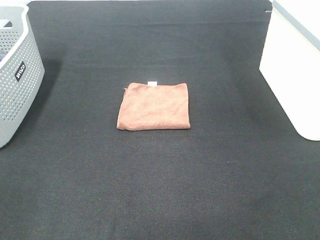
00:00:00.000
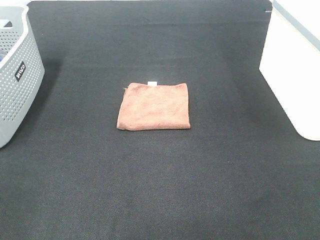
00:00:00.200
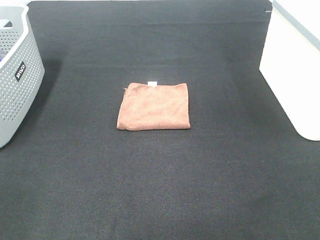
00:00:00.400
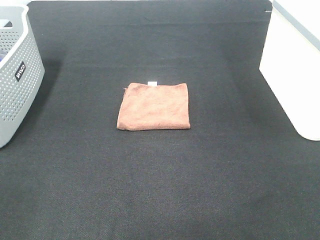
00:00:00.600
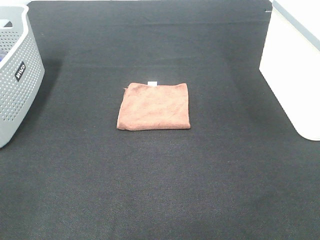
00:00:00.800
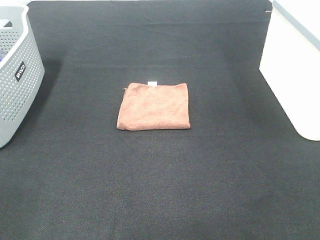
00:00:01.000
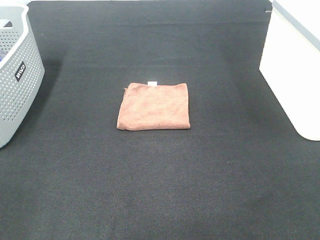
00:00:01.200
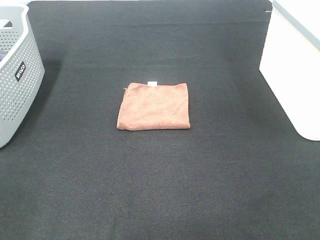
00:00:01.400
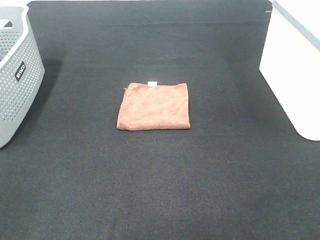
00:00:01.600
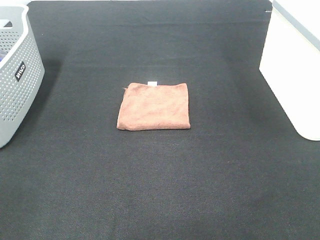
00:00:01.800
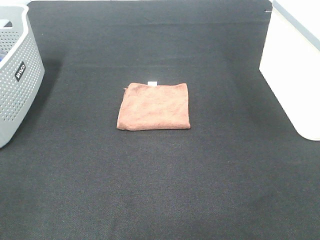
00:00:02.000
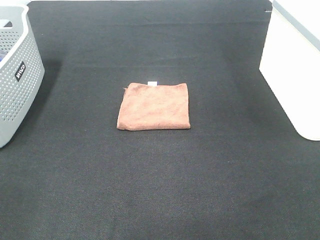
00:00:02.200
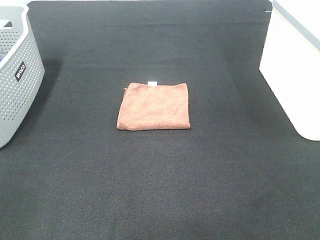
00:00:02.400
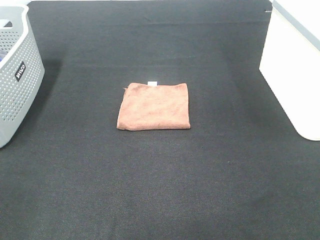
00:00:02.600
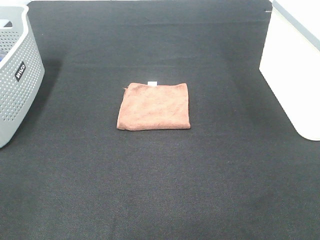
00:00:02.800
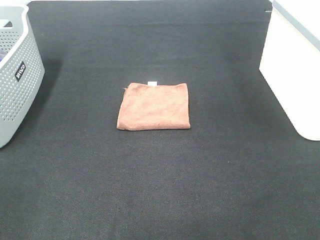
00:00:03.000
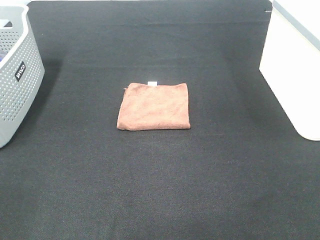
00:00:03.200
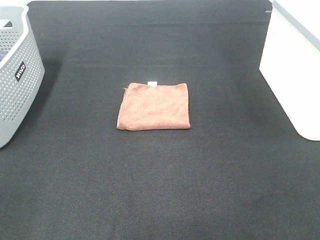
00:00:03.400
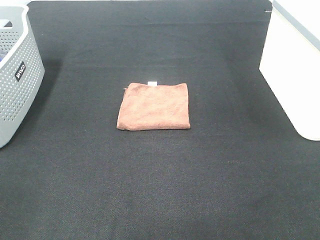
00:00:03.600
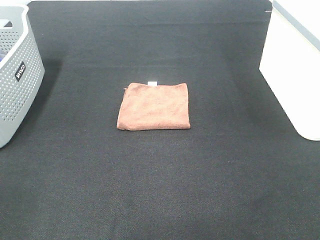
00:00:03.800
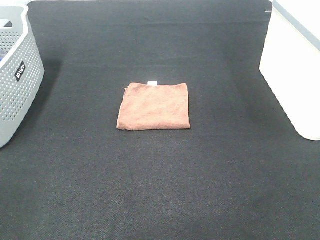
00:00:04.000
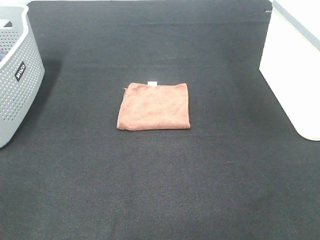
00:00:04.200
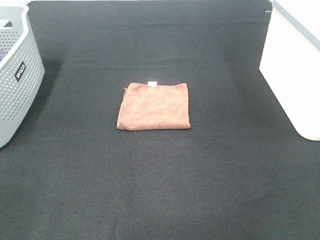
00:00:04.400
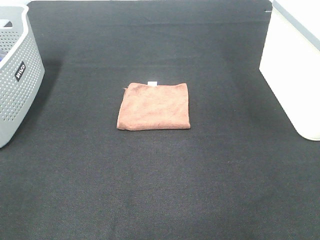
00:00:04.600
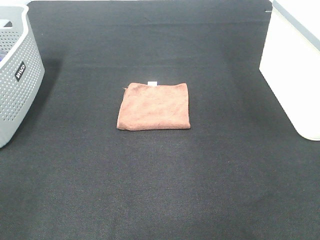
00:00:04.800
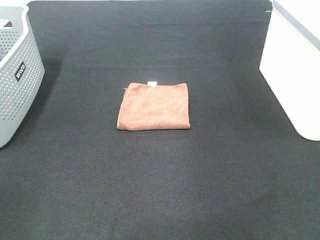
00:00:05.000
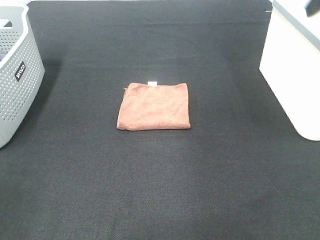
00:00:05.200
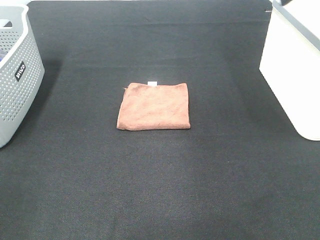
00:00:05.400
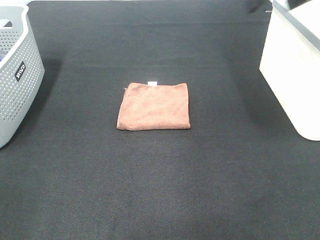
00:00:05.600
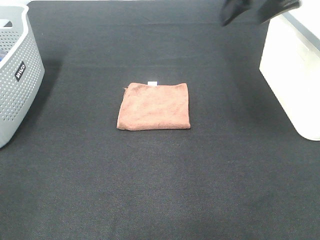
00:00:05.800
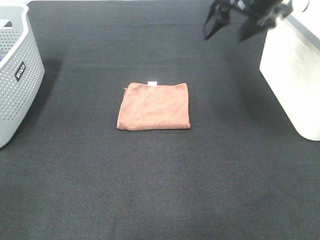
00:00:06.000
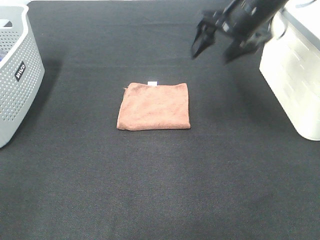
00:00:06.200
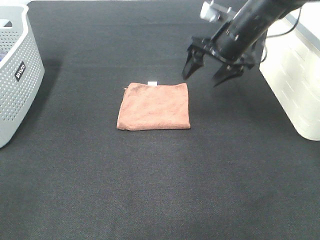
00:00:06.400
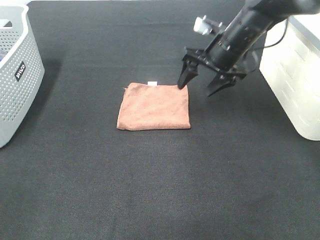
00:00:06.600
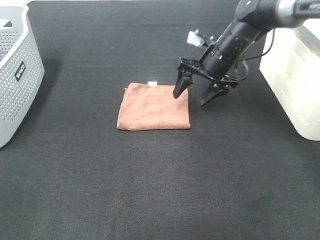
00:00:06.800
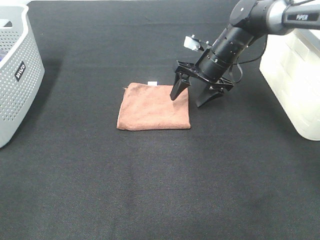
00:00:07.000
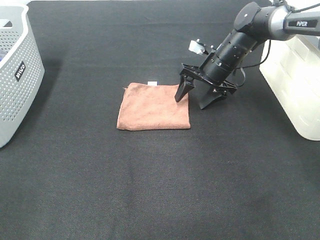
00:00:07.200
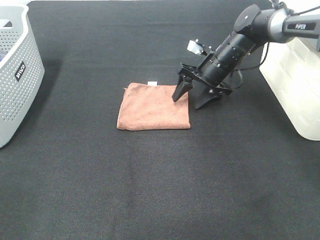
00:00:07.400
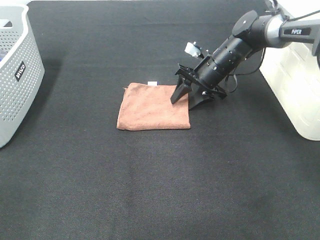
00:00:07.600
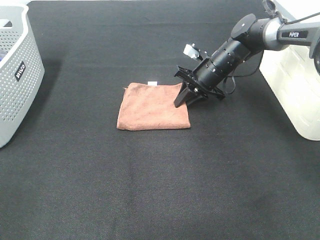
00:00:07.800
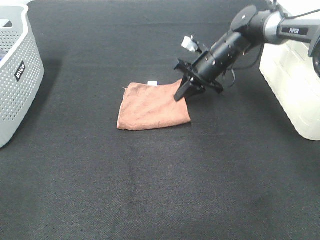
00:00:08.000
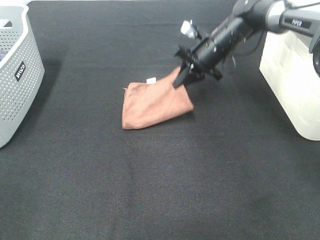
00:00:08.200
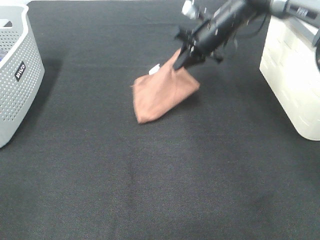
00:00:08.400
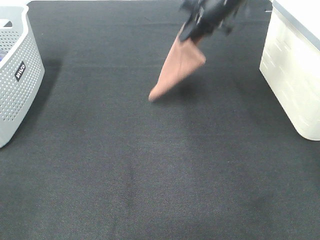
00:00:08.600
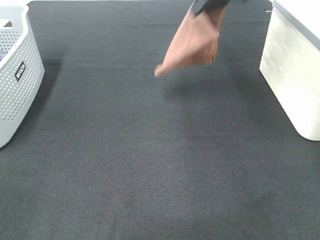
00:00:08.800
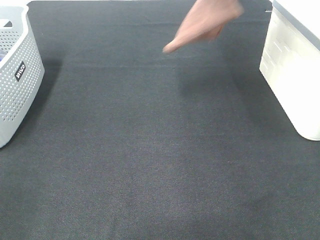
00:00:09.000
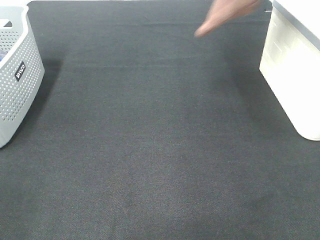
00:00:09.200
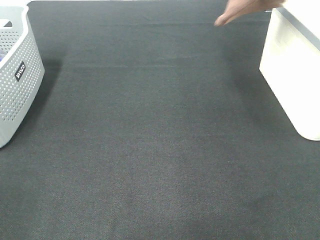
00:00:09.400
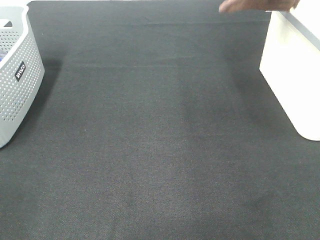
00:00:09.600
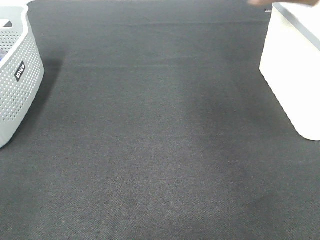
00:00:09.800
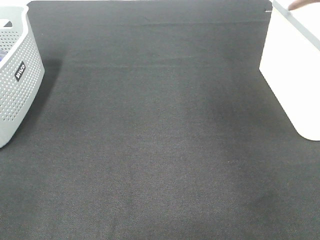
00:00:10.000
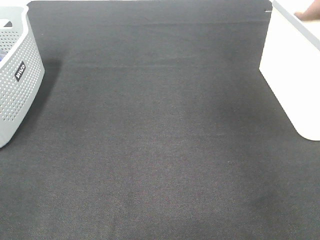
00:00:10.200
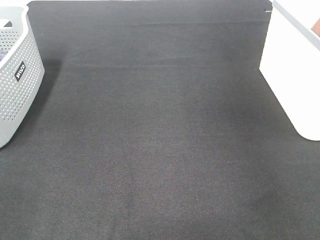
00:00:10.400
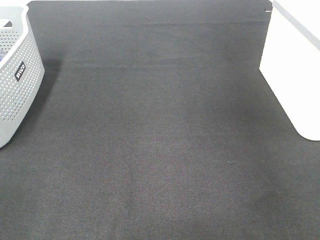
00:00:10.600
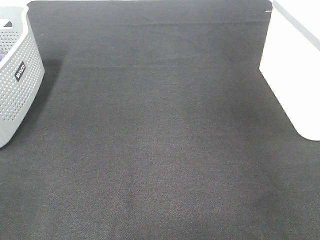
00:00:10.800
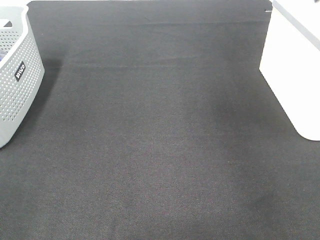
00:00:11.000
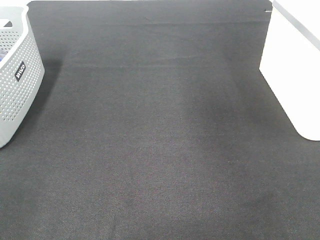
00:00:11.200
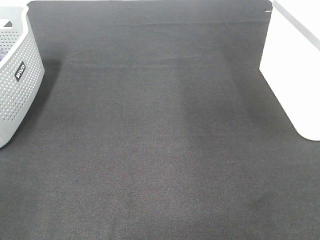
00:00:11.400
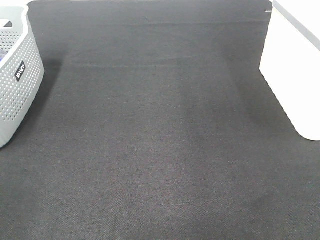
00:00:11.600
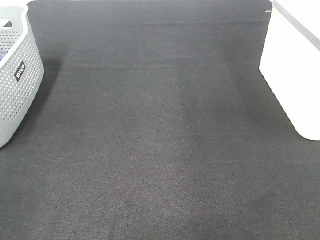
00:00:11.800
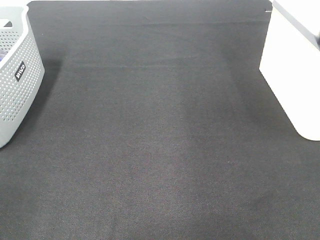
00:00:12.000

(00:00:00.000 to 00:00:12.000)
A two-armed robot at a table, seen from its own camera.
Step, 00:00:00.000 - 00:00:08.000: Right hand: grab the folded brown towel.
Step, 00:00:08.200 - 00:00:10.800: Right hand: place the brown towel in right basket.
00:00:00.000 - 00:00:03.000: Neither gripper changes place.
00:00:04.400 - 00:00:06.000: The right gripper heads forward and to the left, covering roughly 30 cm.
00:00:06.000 - 00:00:07.600: The right gripper moves downward and forward, about 20 cm.
00:00:07.600 - 00:00:09.000: The right gripper is displaced upward by about 30 cm, and closes.
00:00:09.000 - 00:00:10.400: The right gripper goes roughly 20 cm to the right.

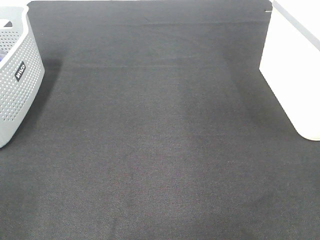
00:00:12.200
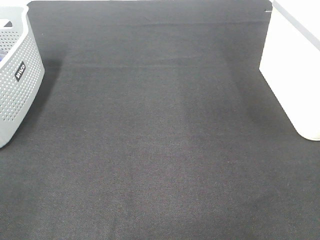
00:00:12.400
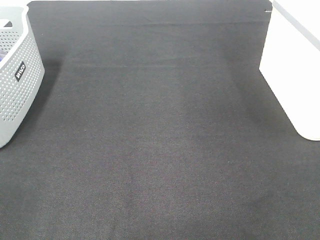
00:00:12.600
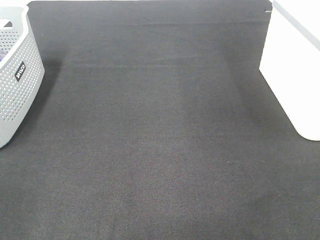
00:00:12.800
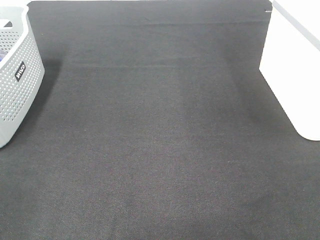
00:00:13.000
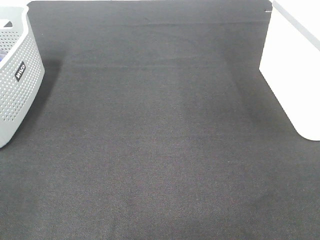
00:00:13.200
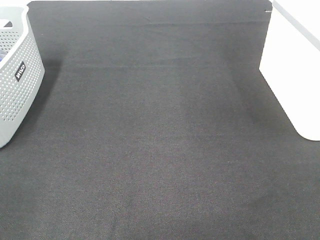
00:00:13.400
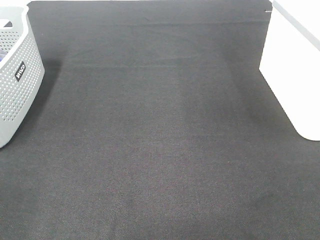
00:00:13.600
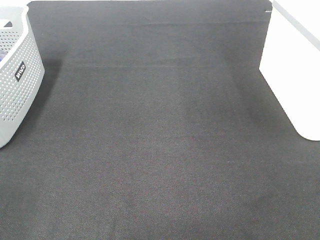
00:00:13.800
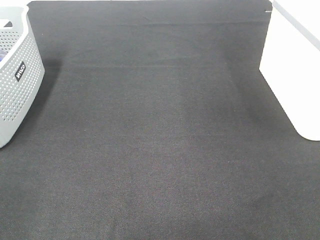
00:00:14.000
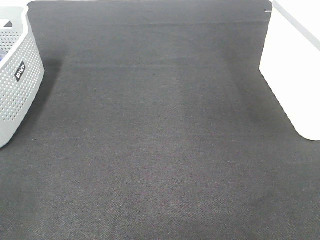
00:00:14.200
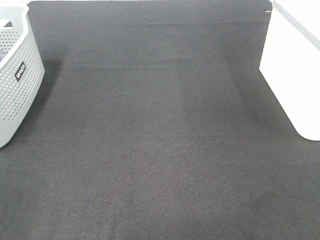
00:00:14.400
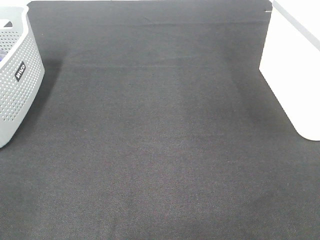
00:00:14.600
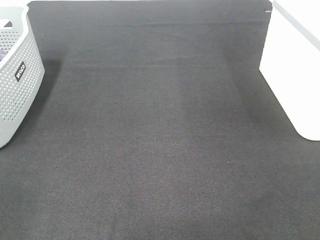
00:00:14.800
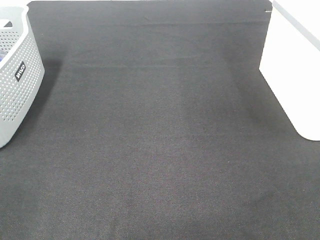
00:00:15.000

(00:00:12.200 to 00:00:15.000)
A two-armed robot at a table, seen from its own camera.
00:00:13.600 - 00:00:15.000: Both grippers stay about where they are.

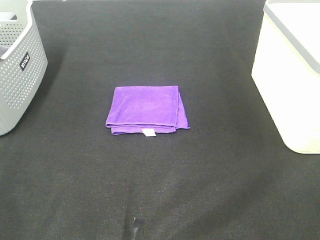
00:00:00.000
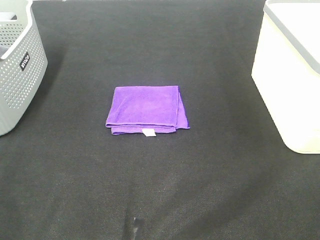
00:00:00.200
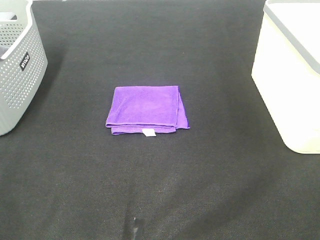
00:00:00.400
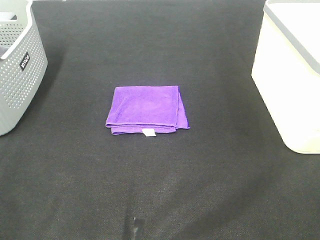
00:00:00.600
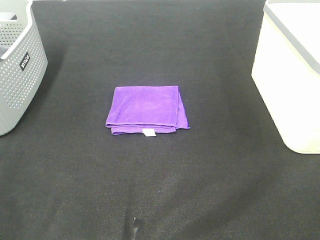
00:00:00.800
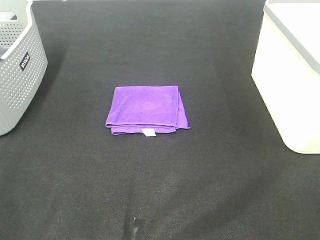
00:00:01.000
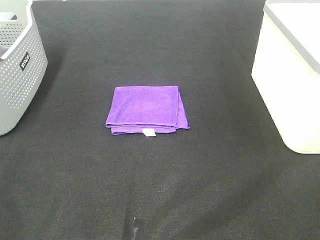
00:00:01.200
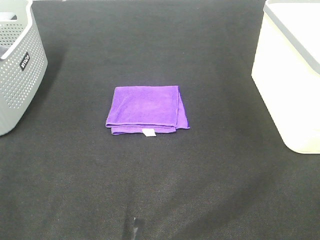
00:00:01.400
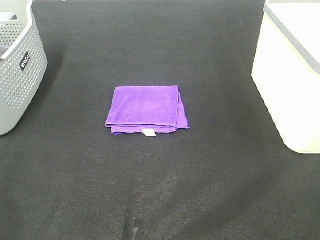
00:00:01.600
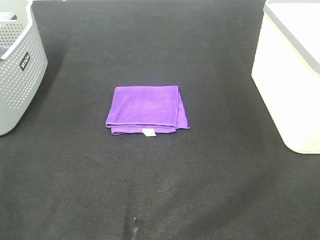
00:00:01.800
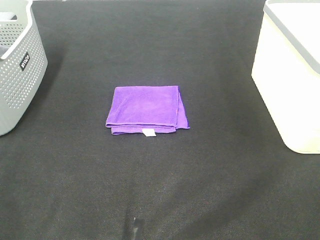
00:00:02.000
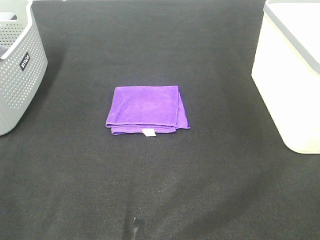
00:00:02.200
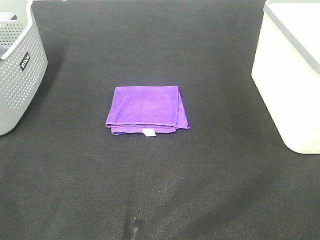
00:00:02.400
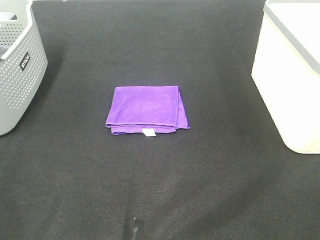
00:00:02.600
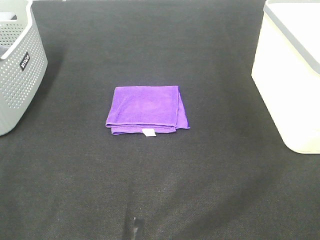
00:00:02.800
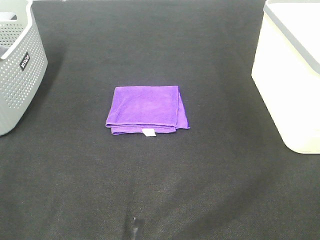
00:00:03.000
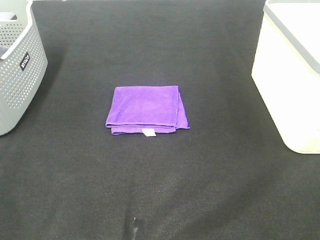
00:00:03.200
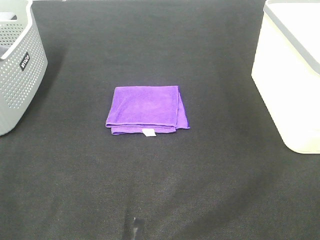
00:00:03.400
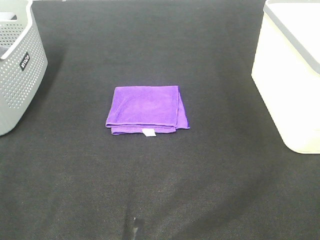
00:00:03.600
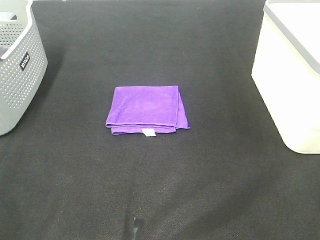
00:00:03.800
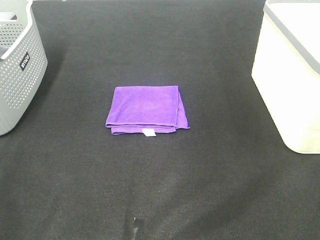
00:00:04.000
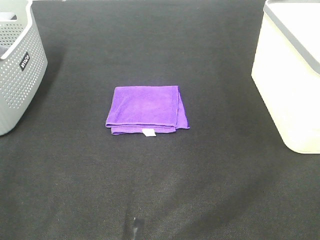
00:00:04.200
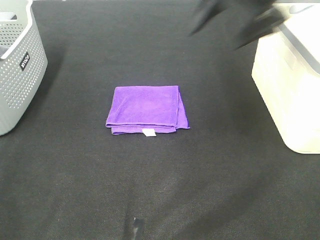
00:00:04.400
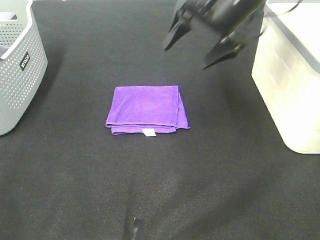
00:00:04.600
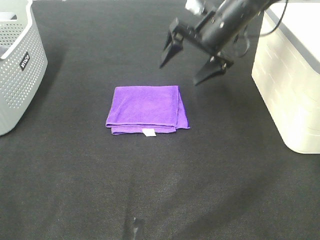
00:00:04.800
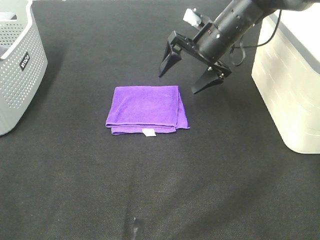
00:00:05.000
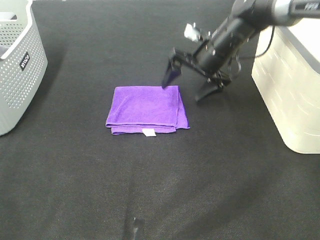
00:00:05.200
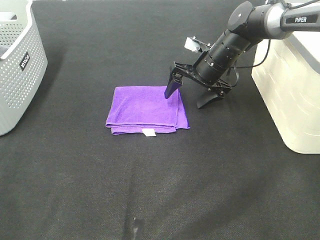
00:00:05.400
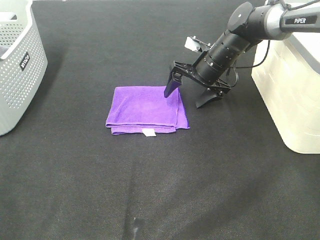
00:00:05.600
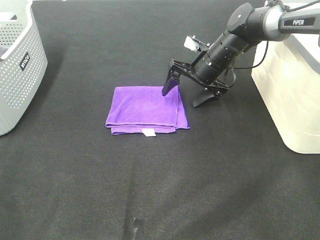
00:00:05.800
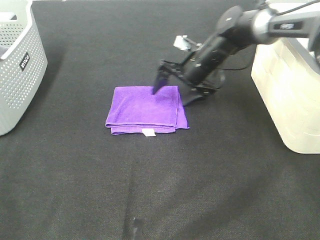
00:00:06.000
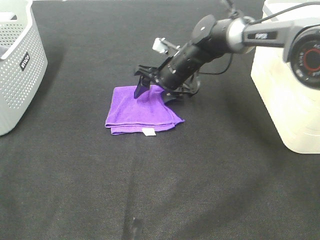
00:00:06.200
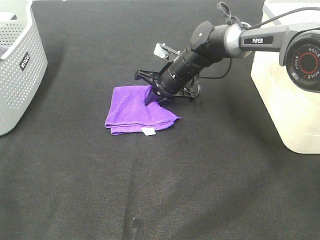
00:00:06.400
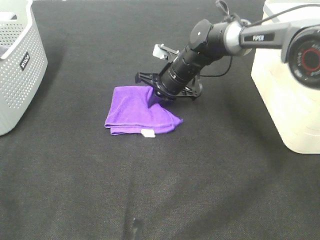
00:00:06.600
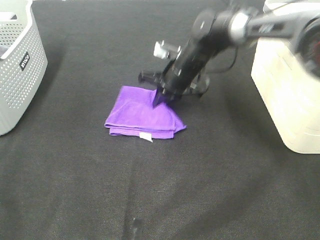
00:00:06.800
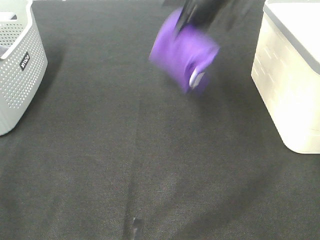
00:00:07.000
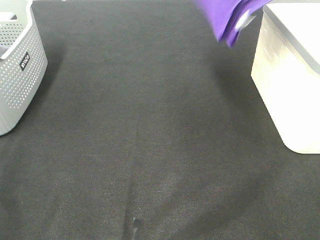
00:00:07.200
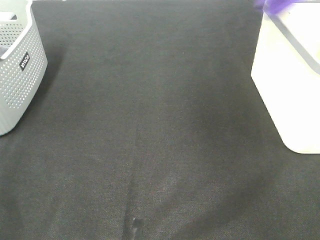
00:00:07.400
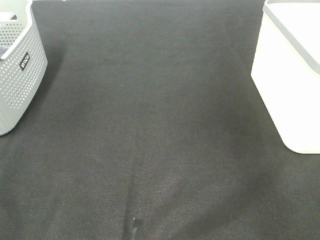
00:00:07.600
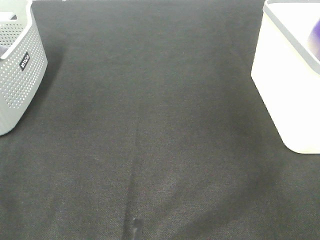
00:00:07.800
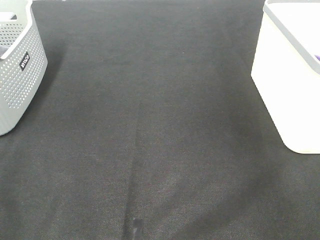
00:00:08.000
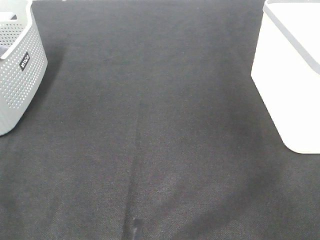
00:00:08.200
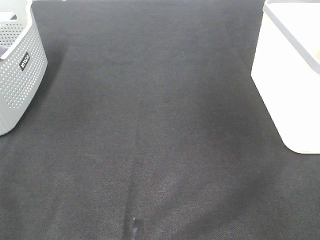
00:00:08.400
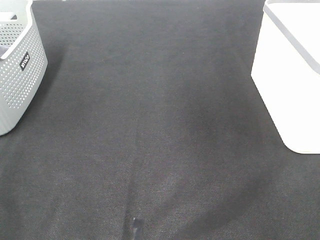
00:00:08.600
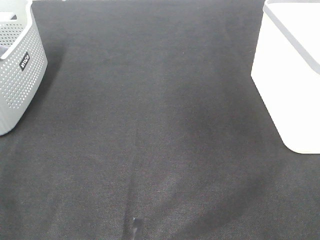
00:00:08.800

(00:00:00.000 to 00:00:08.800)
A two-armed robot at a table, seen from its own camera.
Step, 00:00:00.000 - 00:00:06.600: Right hand: grab the folded purple towel.
Step, 00:00:06.800 - 00:00:08.000: Right hand: place the purple towel in right basket.
00:00:00.000 - 00:00:03.000: The two grippers keep their place.
00:00:03.000 - 00:00:04.400: The right gripper is displaced forward by roughly 40 cm.
00:00:04.400 - 00:00:05.800: The right gripper travels downward and forward by roughly 20 cm.
00:00:05.800 - 00:00:07.400: The right gripper heads upward and to the right, covering approximately 40 cm, and closes its fingers.
00:00:07.400 - 00:00:08.800: The right gripper travels to the right and back again, some 5 cm each way, and opens its fingers.
